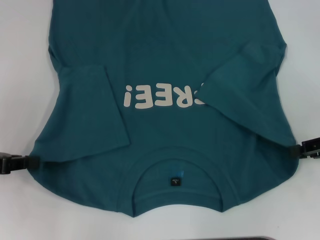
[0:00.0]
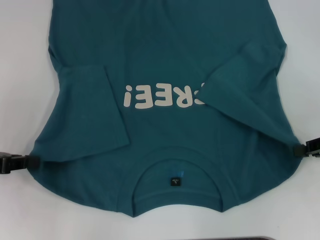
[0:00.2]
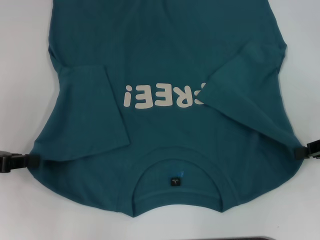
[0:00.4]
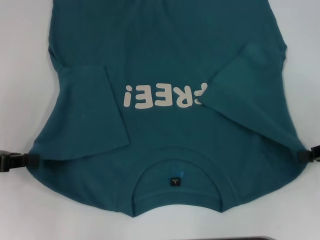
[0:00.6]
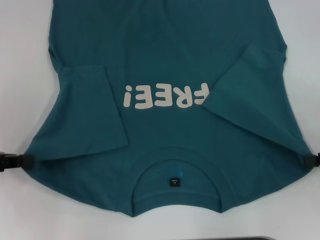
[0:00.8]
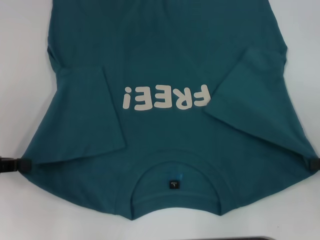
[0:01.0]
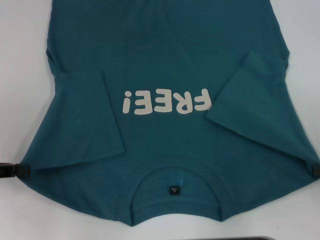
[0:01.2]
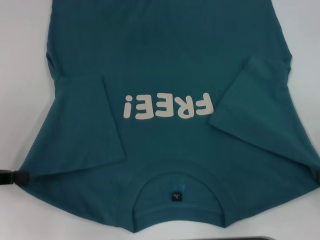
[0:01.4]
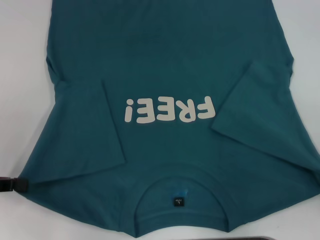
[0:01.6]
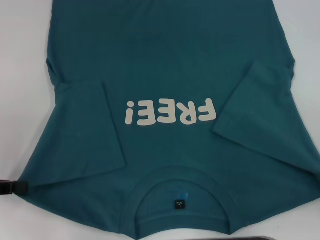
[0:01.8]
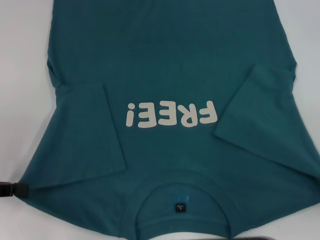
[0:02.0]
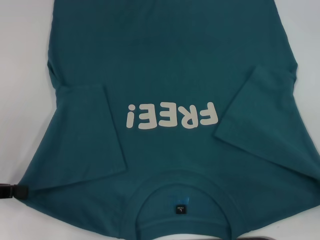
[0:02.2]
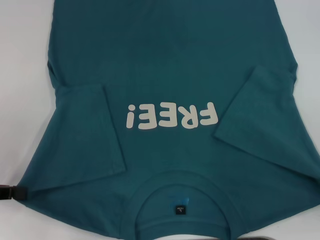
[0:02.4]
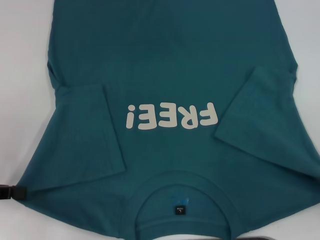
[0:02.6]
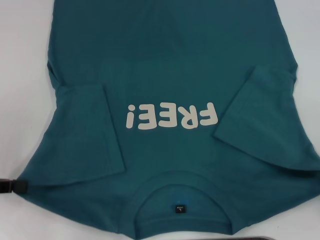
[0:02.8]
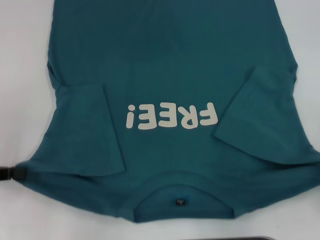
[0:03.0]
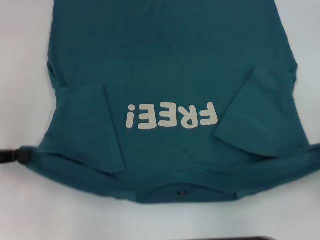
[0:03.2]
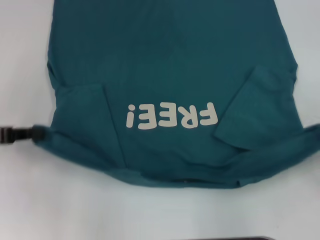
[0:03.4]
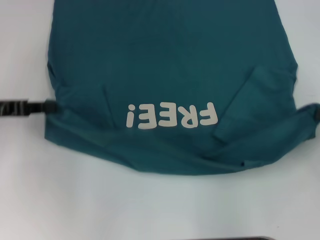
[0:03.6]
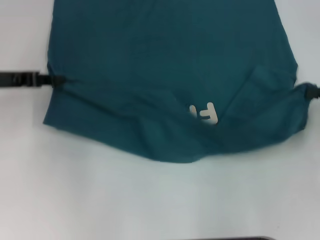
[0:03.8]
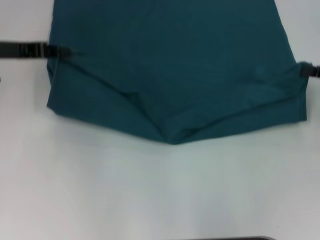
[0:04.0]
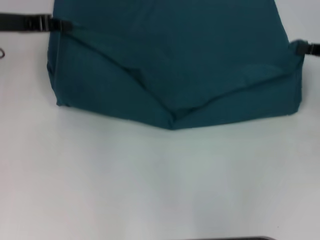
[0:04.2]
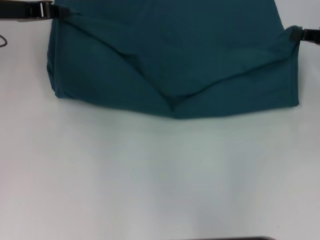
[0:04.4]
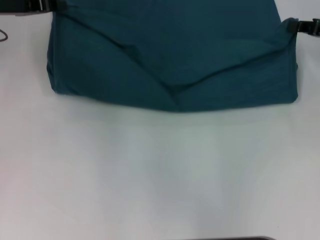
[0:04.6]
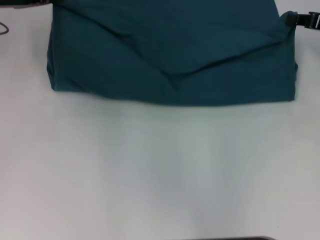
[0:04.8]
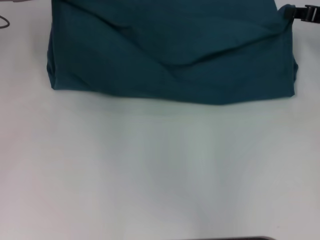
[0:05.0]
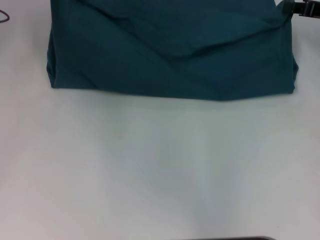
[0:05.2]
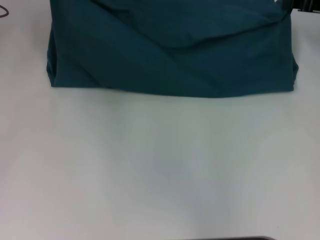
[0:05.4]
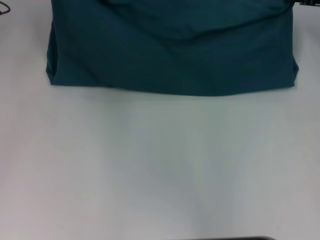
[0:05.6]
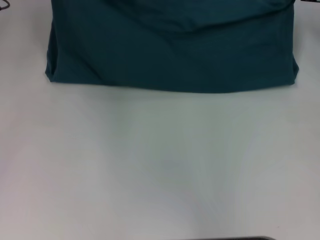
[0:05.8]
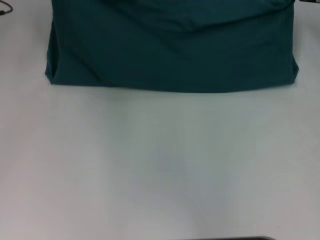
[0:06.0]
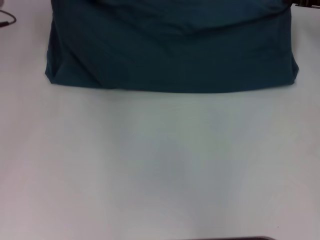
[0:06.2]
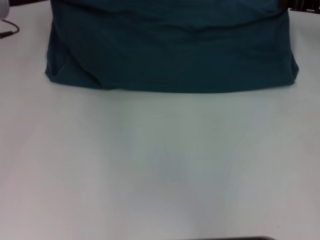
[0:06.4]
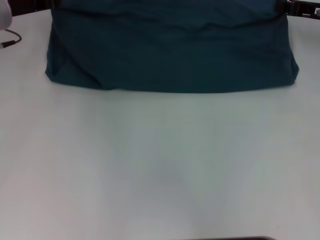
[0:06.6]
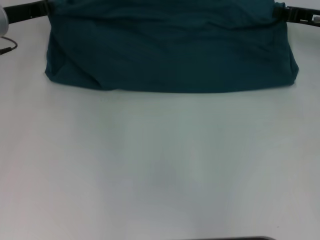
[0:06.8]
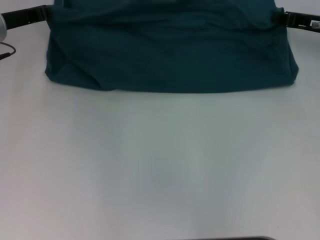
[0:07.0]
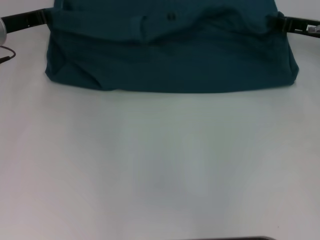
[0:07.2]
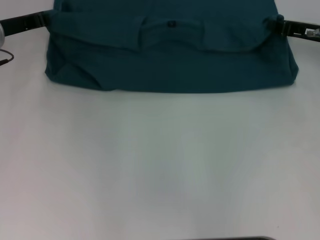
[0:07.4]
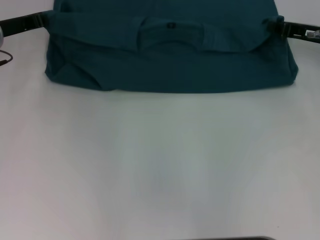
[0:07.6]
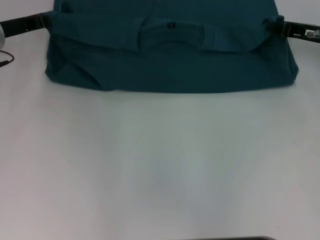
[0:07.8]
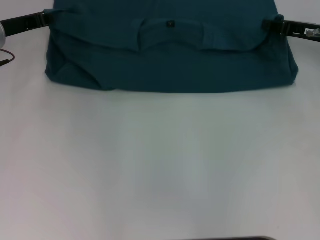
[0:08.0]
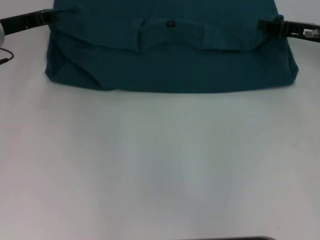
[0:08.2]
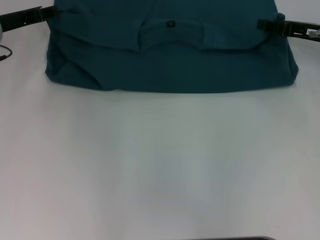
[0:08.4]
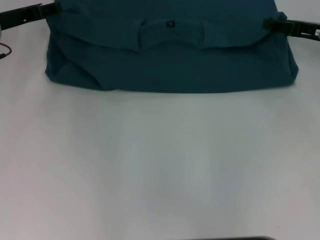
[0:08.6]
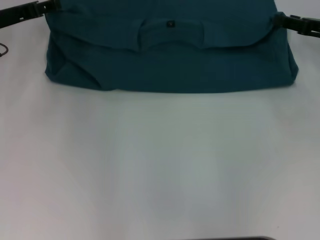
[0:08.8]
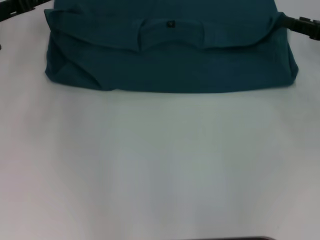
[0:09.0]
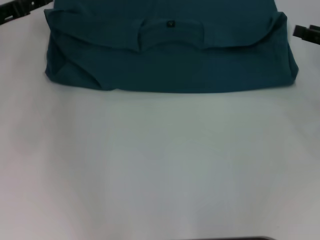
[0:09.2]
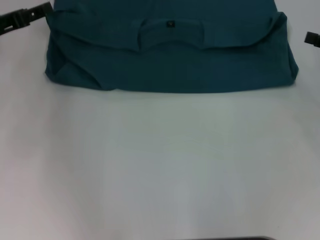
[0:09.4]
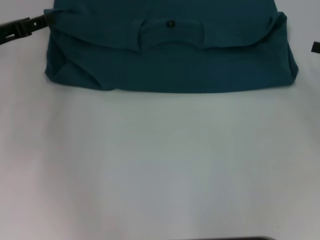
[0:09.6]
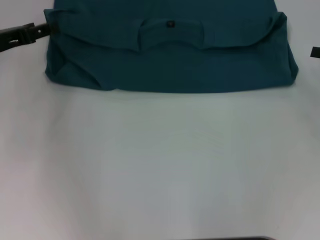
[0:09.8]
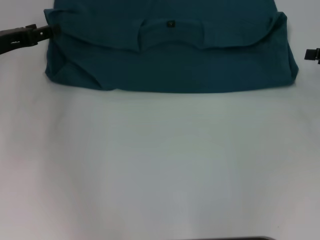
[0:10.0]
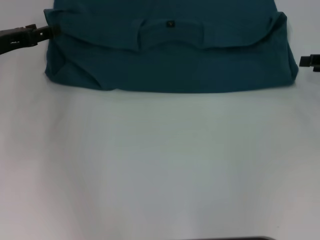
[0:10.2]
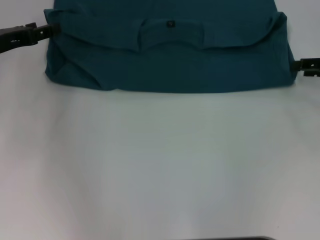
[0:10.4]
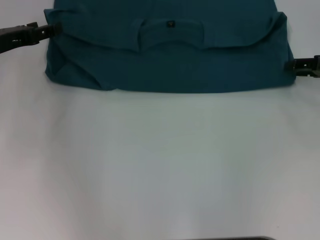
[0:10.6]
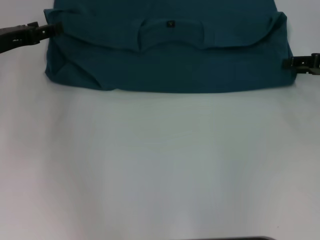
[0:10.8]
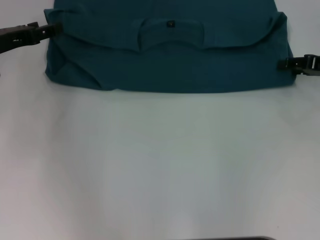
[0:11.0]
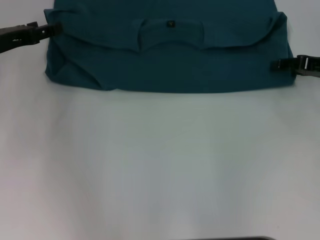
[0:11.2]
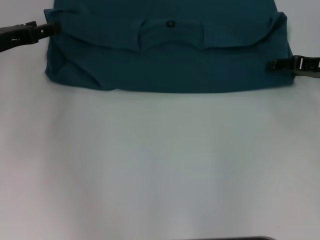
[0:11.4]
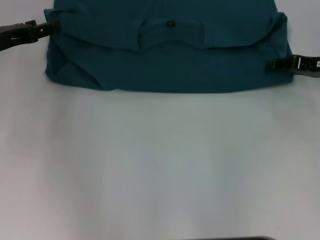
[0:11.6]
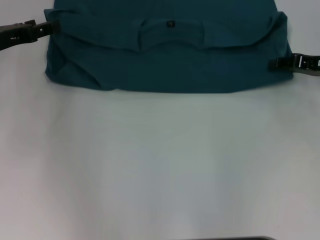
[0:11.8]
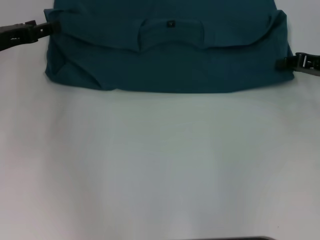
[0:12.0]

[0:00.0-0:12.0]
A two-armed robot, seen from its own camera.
Step, 0:01.2 to 0:08.8: Fold the clothes to the left.
Step, 0:01.2 to 0:08.8: Fold the clothes to the right.
0:00.0 to 0:01.6: The right gripper goes roughly 10 cm backward, and closes.
0:01.6 to 0:03.0: The grippers make only small movements.
0:03.0 to 0:04.4: The right gripper moves forward, roughly 20 cm. Meanwhile the left gripper heads forward and to the right, covering approximately 20 cm.
0:04.4 to 0:06.0: The right gripper travels forward by approximately 5 cm.
0:06.0 to 0:07.6: The two grippers go about 5 cm downward.
0:07.6 to 0:09.0: The left gripper opens, while the right gripper moves approximately 5 cm, and opens up.
0:10.4 to 0:12.0: The right gripper closes up.

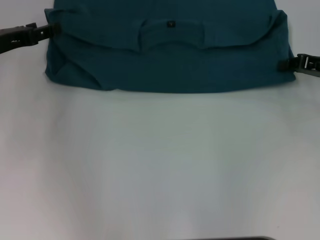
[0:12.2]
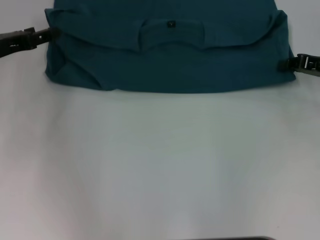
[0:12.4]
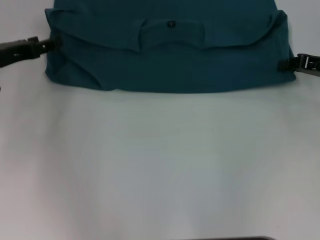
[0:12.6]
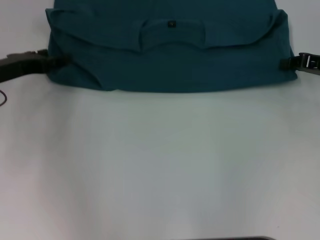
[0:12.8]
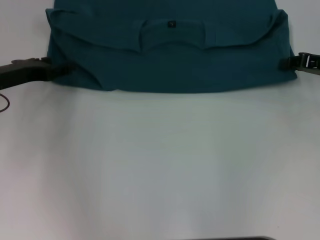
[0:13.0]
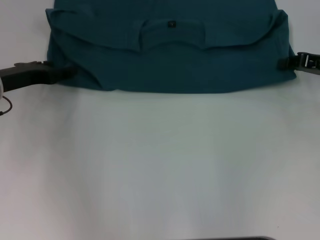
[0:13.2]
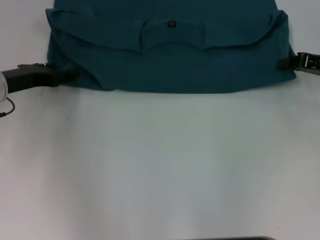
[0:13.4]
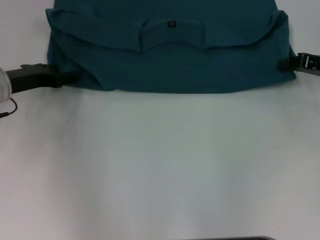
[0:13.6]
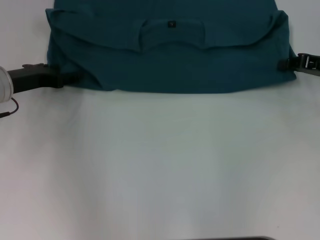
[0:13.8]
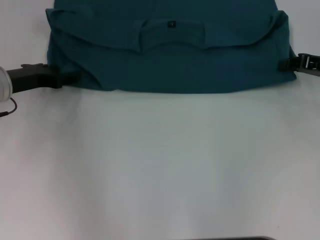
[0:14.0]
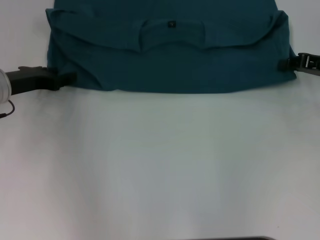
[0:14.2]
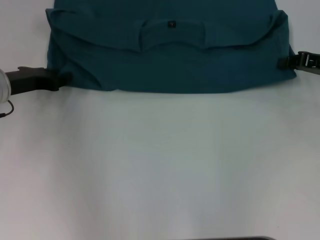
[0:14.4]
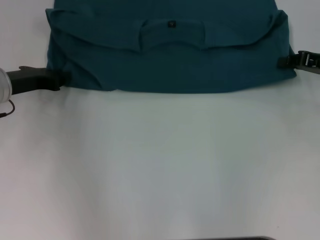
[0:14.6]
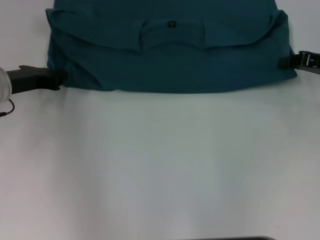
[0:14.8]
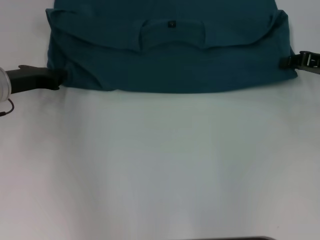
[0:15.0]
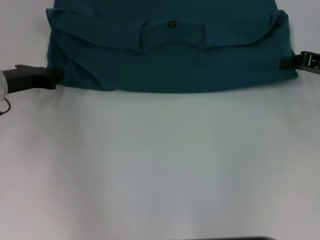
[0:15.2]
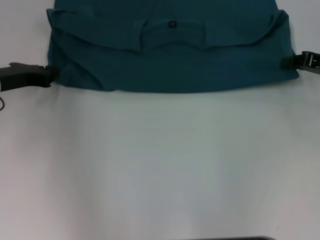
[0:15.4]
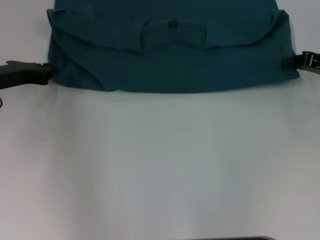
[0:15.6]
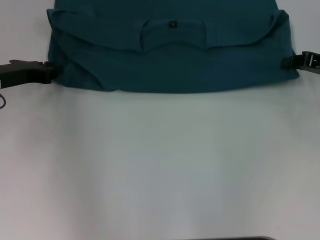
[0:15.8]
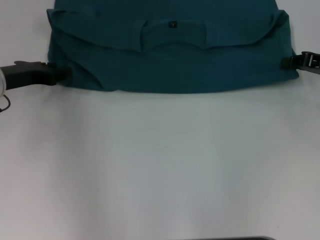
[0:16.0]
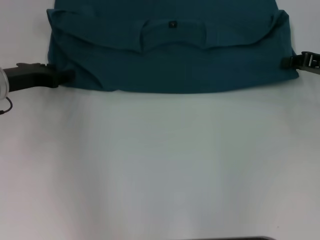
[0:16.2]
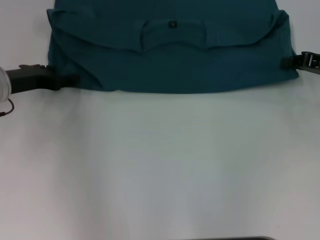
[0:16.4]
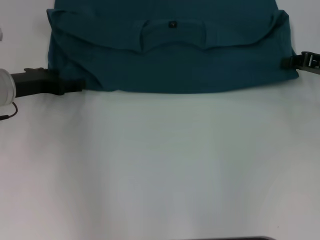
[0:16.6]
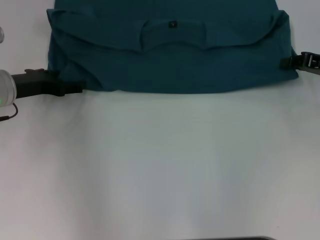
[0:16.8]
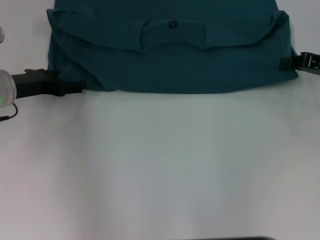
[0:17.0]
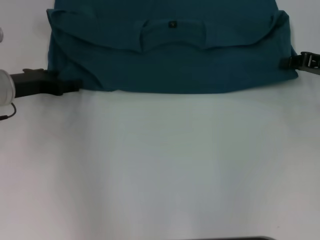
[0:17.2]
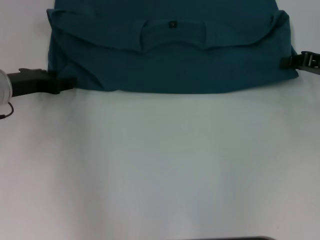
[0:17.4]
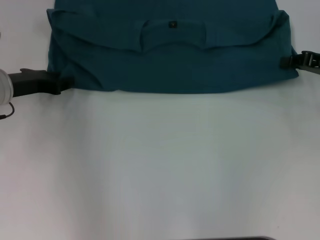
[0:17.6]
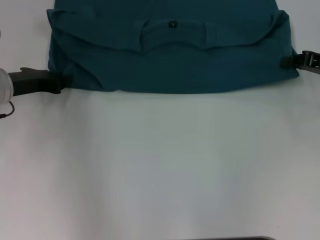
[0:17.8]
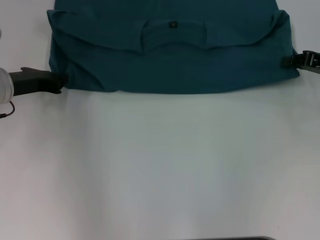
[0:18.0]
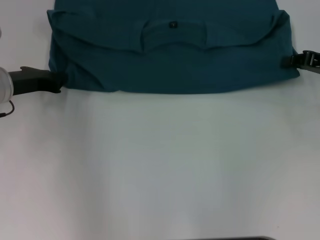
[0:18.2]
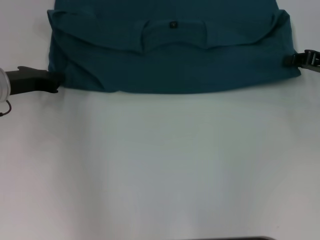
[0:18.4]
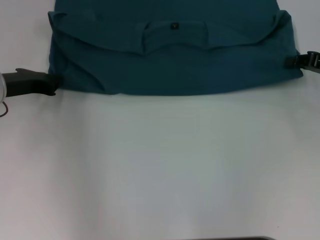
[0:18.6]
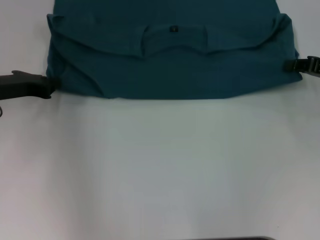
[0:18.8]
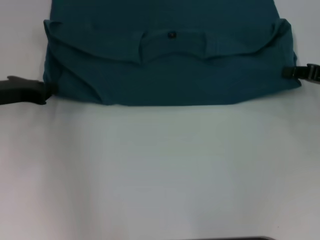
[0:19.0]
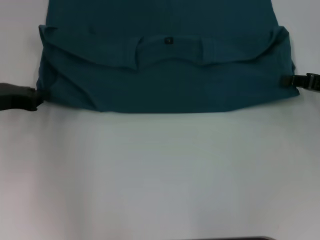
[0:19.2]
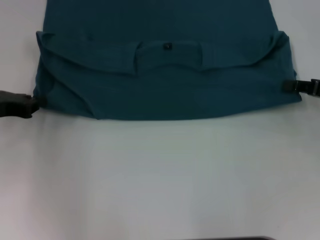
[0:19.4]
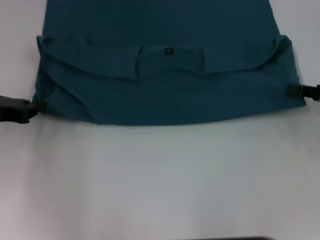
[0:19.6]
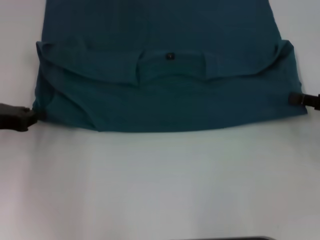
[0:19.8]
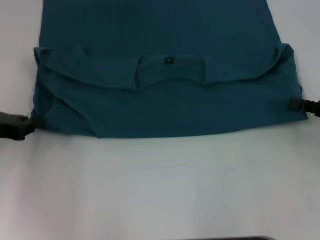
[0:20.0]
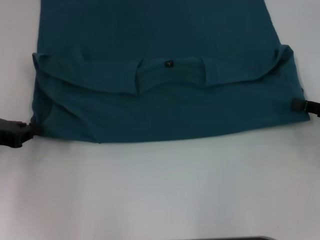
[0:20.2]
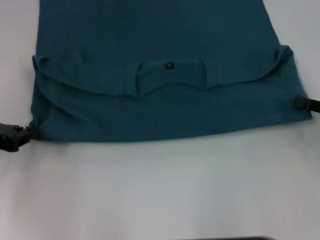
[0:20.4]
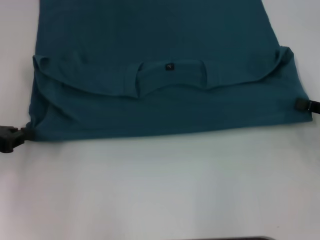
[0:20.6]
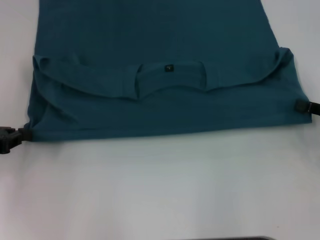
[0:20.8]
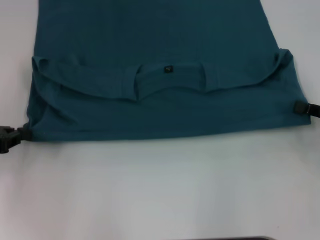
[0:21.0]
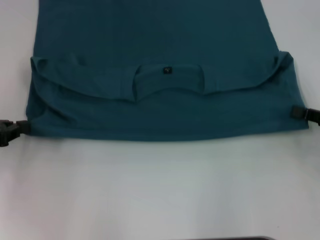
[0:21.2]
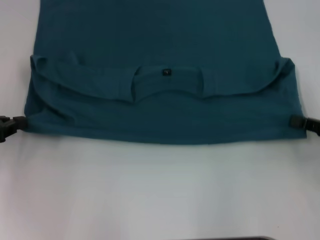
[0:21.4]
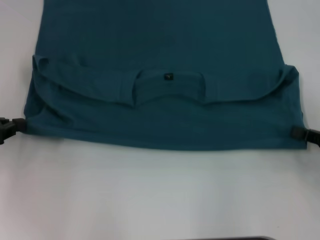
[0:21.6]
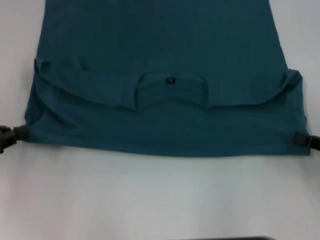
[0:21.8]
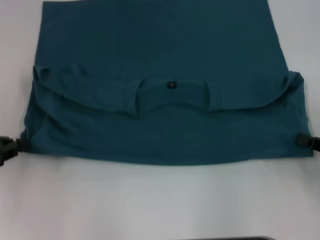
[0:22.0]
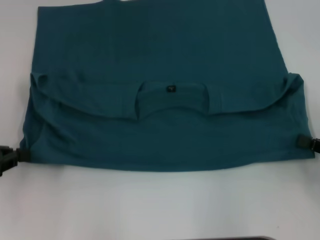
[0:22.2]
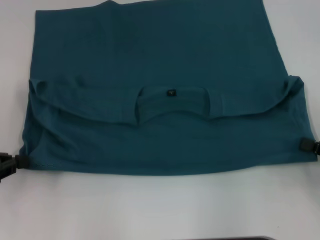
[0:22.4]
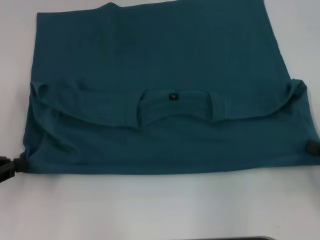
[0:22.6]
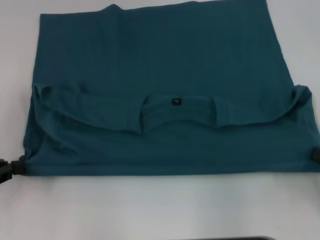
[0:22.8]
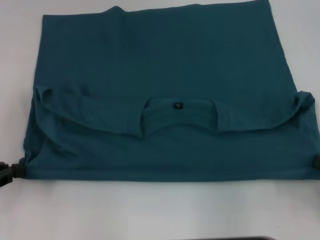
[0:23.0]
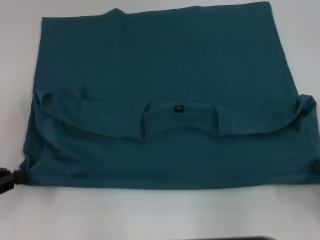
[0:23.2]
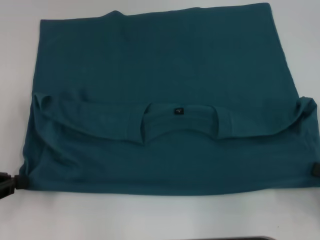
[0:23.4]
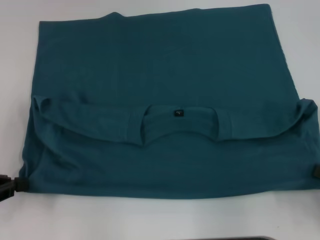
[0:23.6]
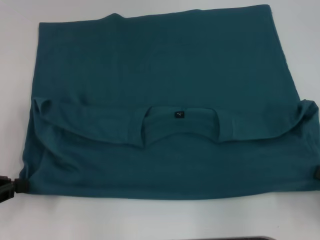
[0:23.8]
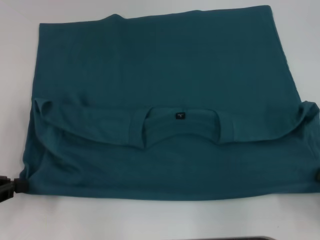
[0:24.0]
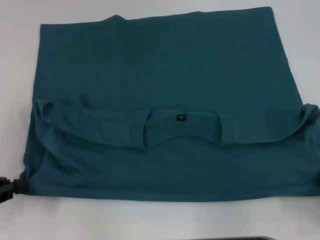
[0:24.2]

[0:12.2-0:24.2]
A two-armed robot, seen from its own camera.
0:12.2 to 0:13.8: There are only small adjustments of the grippers.
0:13.8 to 0:15.2: The left gripper closes its fingers.
0:15.2 to 0:16.6: The left gripper opens up.
0:16.6 to 0:18.2: The left gripper closes its fingers.
0:18.2 to 0:19.8: The right gripper moves backward, approximately 10 cm. Meanwhile the left gripper is displaced backward and to the left by some 10 cm.
0:19.8 to 0:21.2: The grippers move only a little.
0:21.2 to 0:22.6: The right gripper heads backward, covering about 5 cm.
0:22.6 to 0:24.2: The right gripper travels backward by about 5 cm.
